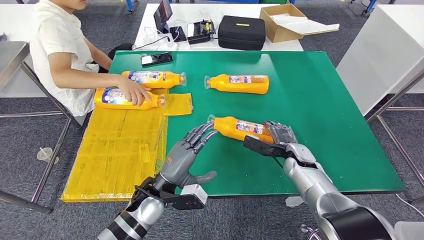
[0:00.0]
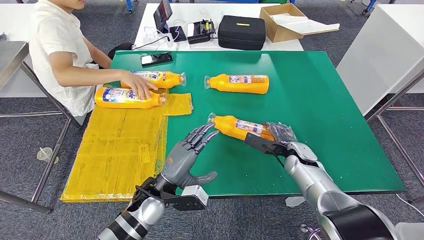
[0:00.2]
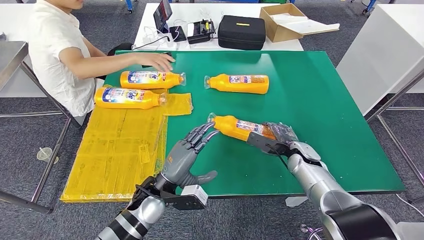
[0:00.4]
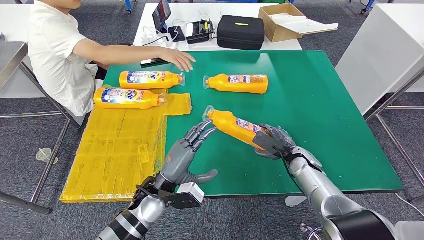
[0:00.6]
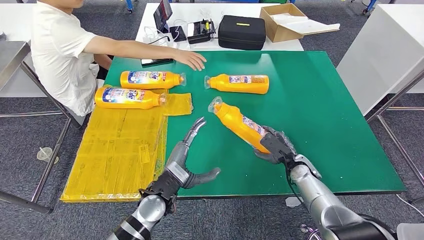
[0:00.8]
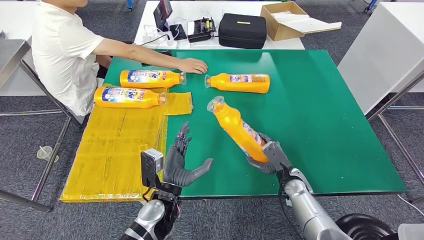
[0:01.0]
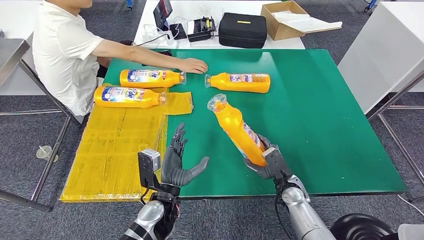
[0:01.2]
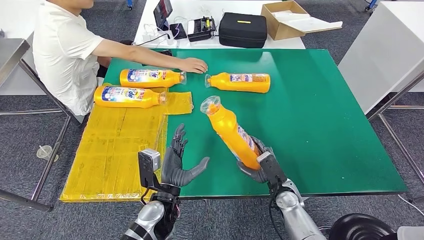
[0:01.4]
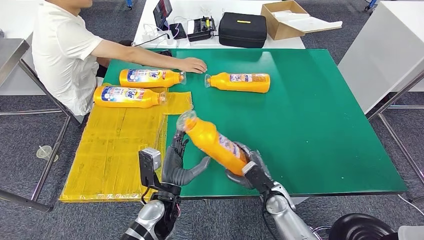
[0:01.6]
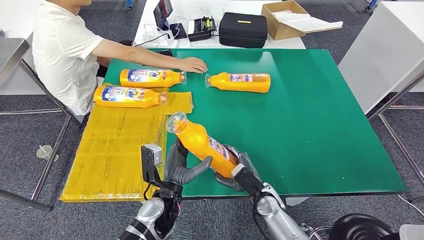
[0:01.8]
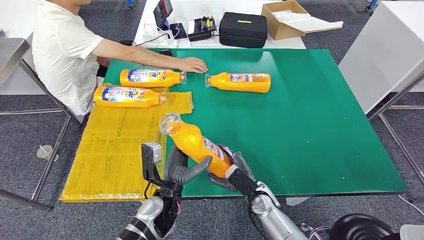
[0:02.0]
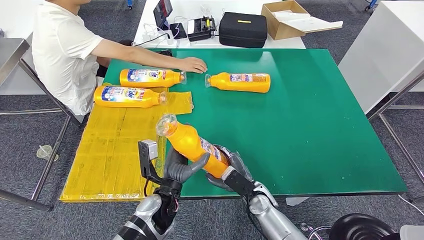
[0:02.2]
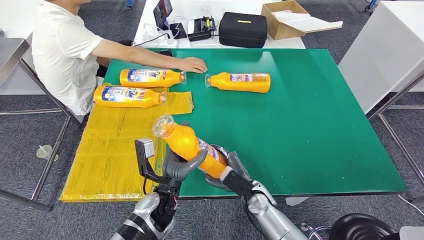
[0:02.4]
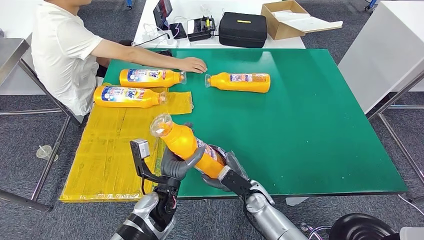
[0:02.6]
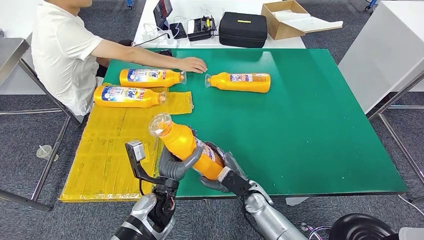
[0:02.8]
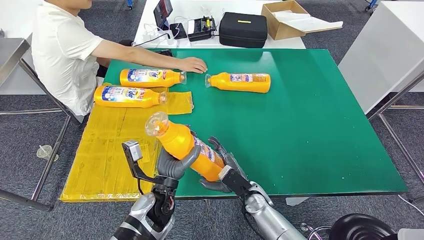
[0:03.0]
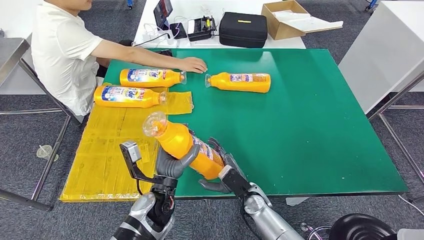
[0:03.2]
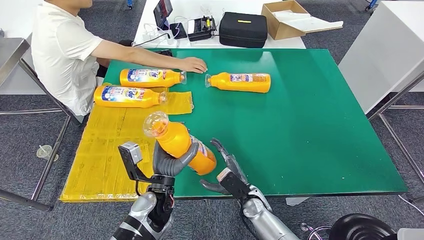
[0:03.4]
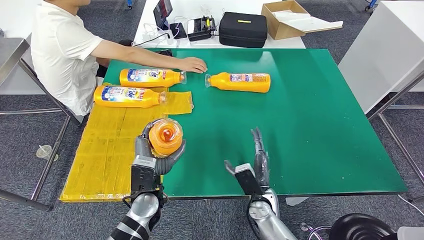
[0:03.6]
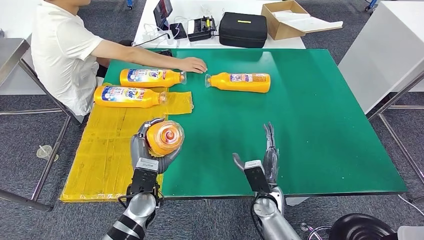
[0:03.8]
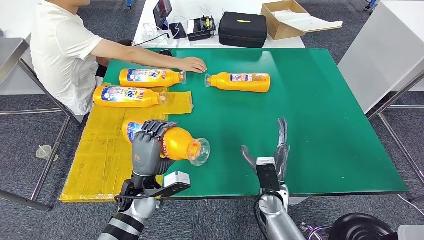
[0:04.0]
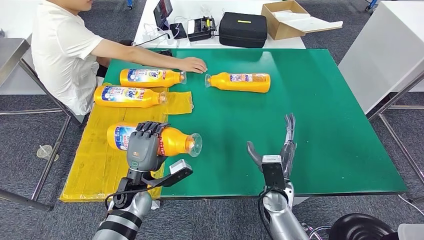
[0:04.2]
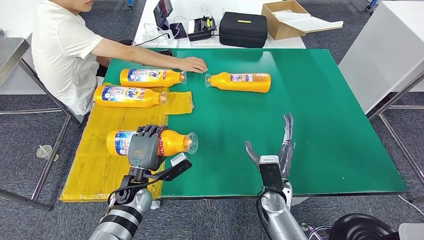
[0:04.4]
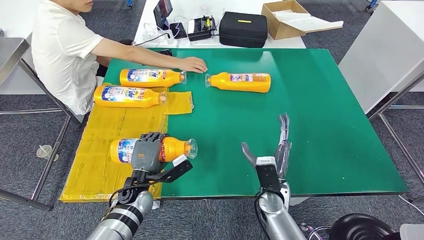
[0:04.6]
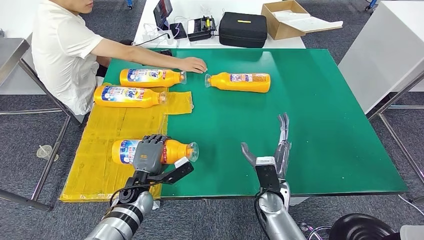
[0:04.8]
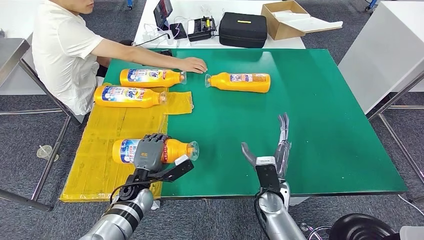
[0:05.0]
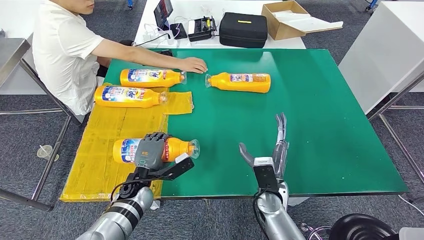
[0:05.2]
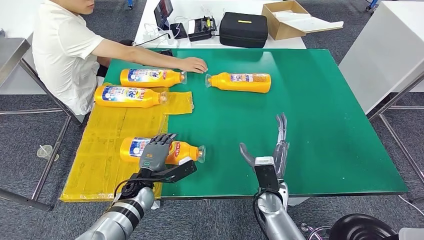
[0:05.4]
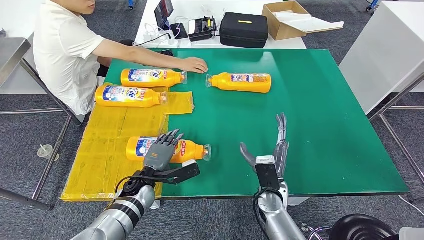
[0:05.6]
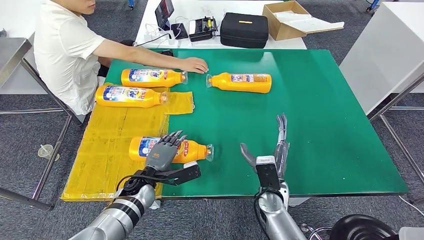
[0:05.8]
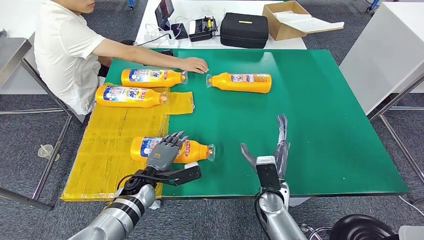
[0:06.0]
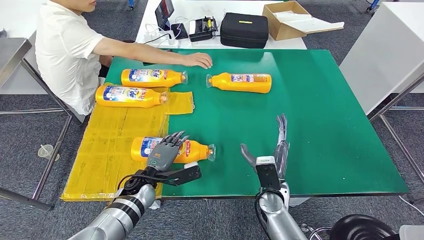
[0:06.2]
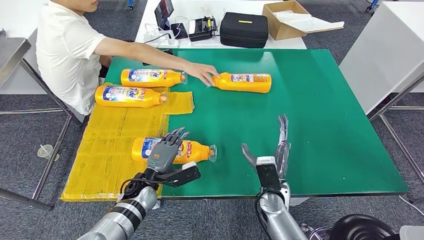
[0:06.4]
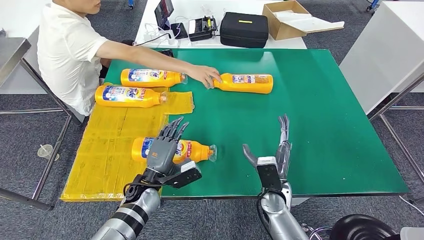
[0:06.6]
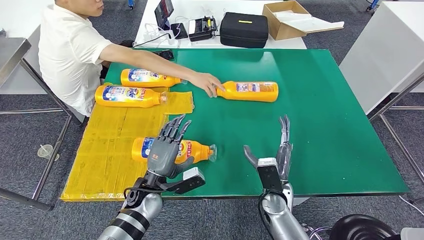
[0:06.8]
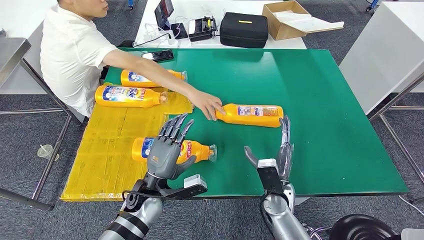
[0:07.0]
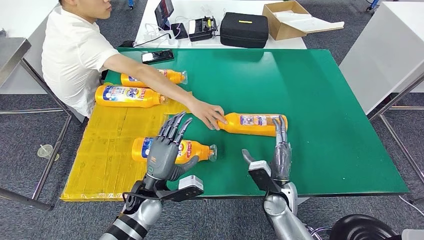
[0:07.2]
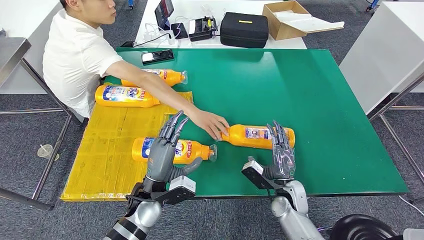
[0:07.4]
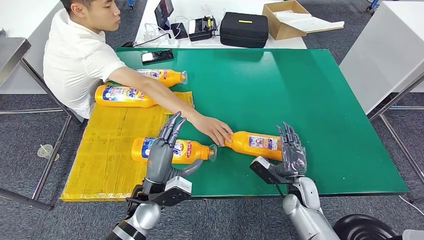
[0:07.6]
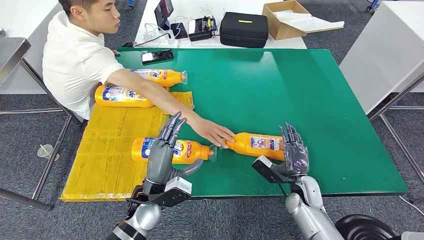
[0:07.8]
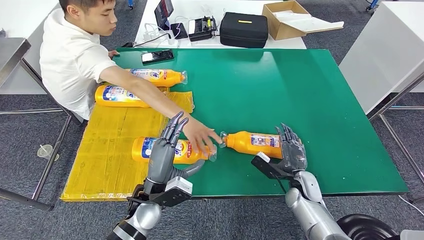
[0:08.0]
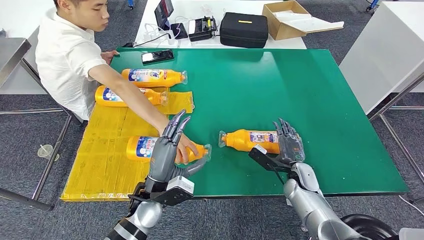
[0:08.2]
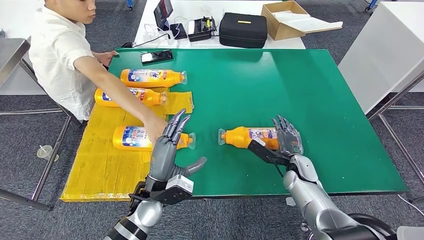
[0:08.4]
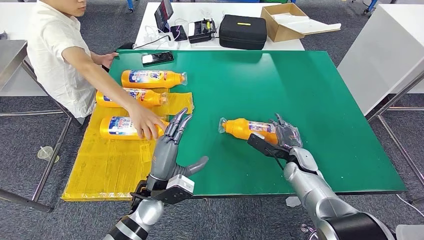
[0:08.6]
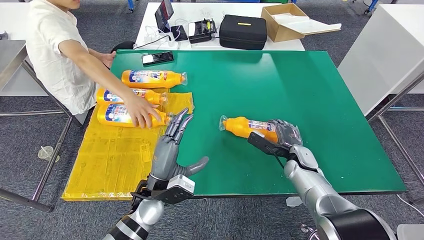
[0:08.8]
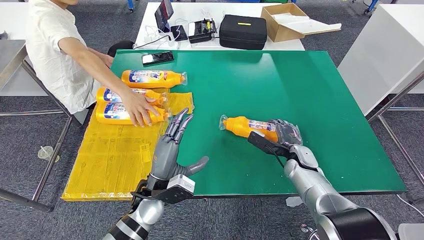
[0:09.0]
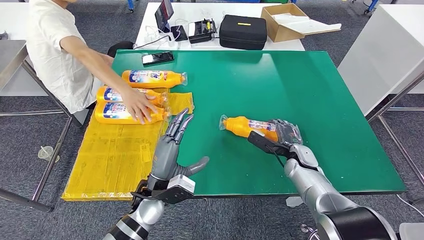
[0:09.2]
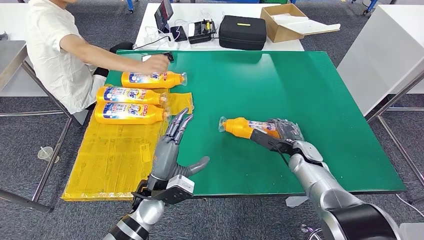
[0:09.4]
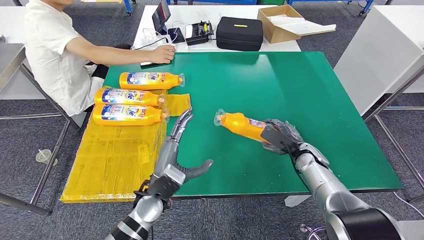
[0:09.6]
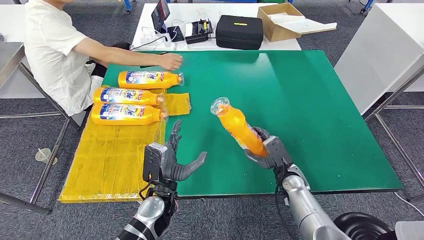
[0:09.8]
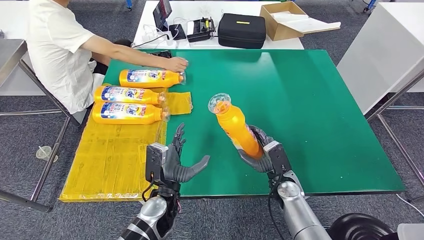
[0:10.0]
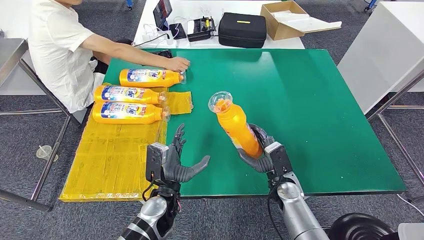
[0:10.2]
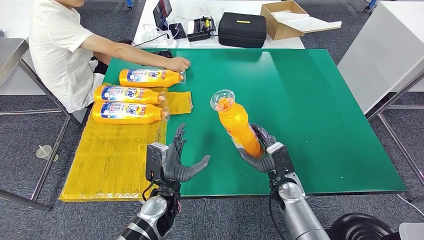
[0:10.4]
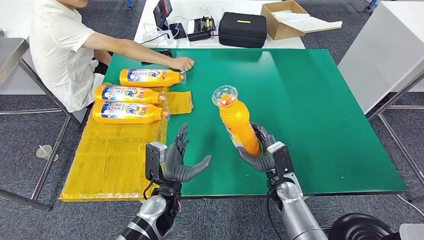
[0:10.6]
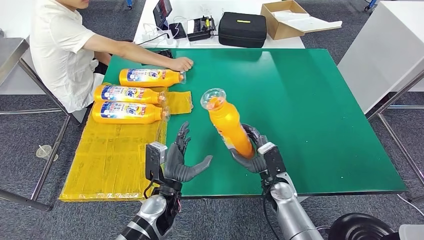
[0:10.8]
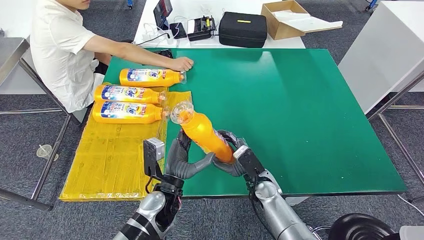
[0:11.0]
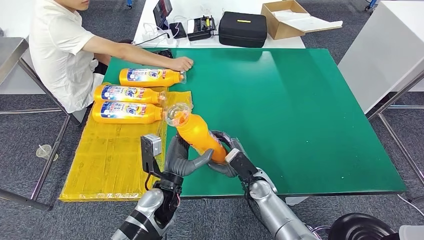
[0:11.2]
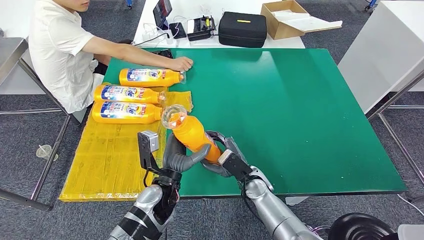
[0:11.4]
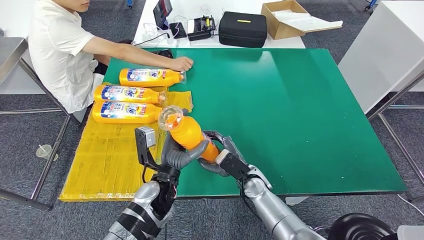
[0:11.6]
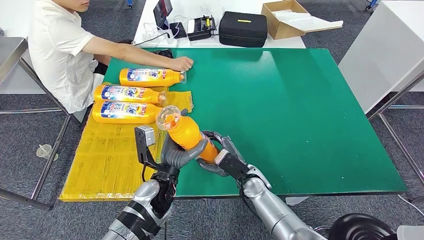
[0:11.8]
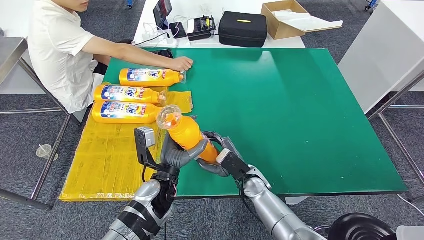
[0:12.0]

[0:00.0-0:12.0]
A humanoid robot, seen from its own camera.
Step, 0:00.0 to 0:03.2: Pick up the fast-moving consumer goods bottle from the table.
Step, 0:03.4 to 0:08.8: Flip the fast-moving consumer goods bottle to the front side.
0:01.6 to 0:03.0: The right hand goes roughly 5 cm to the left.
0:03.0 to 0:04.4: The left hand is displaced to the left and forward by approximately 10 cm; the right hand travels upward by approximately 5 cm.
0:10.4 to 0:12.0: The right hand goes about 10 cm to the left.

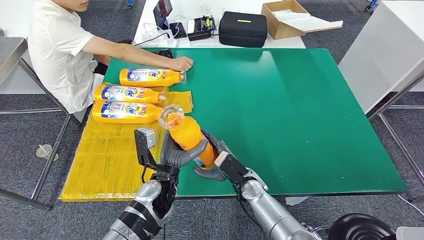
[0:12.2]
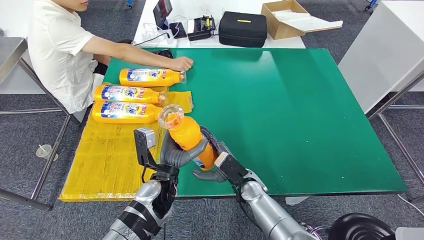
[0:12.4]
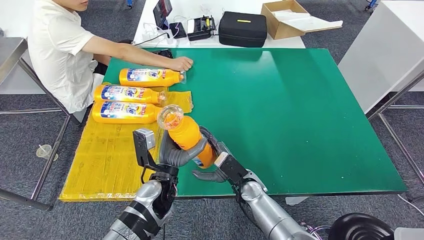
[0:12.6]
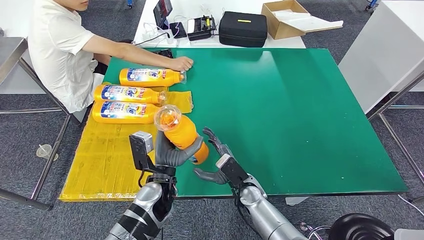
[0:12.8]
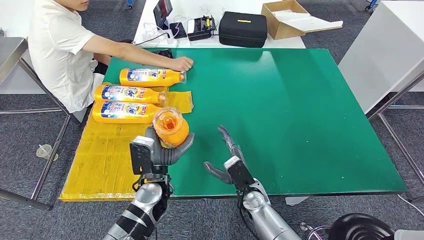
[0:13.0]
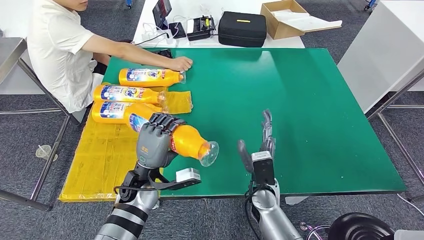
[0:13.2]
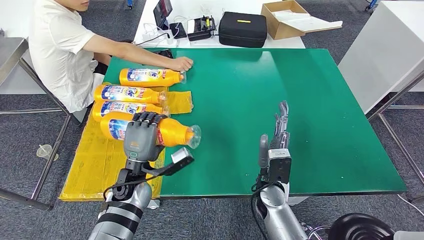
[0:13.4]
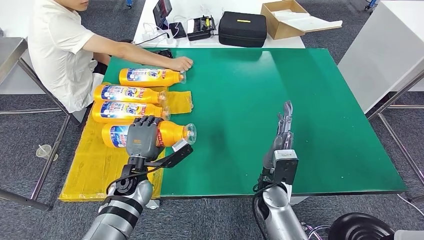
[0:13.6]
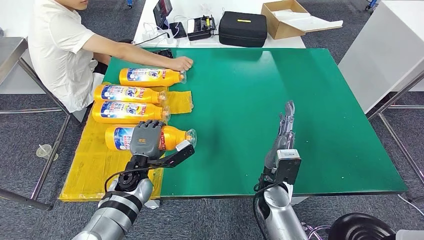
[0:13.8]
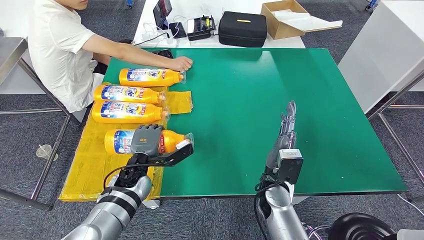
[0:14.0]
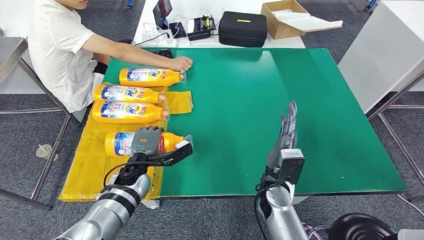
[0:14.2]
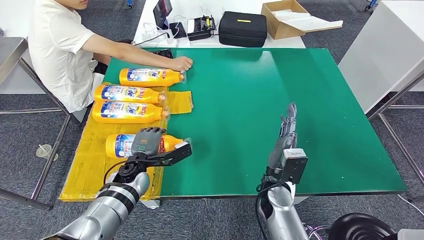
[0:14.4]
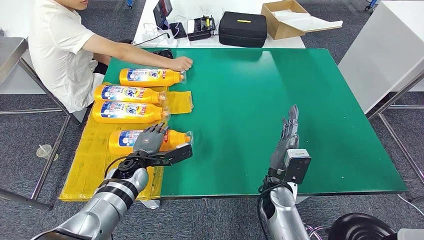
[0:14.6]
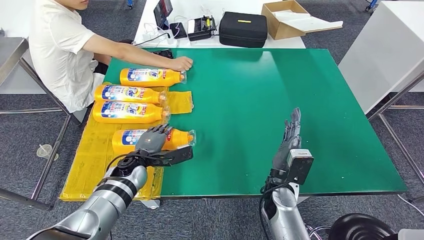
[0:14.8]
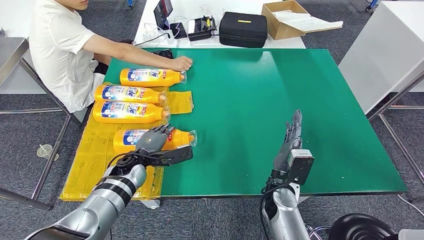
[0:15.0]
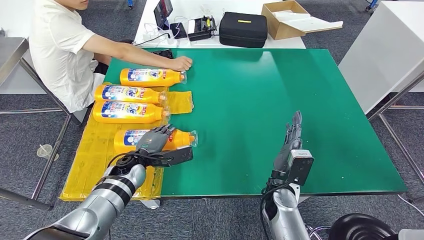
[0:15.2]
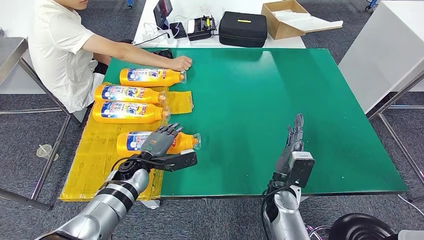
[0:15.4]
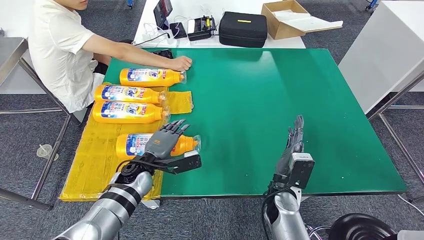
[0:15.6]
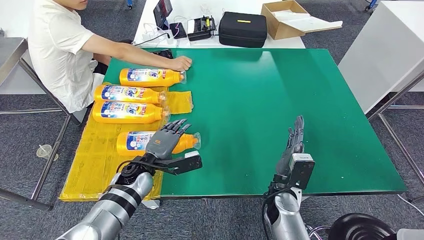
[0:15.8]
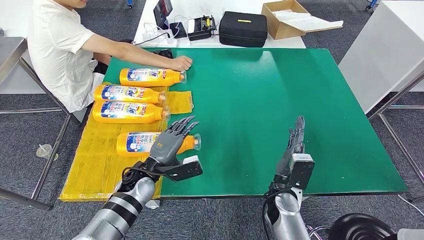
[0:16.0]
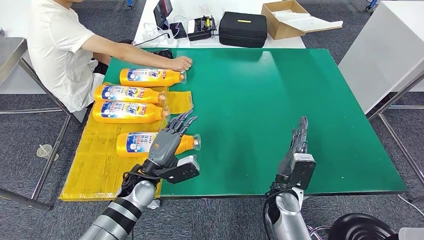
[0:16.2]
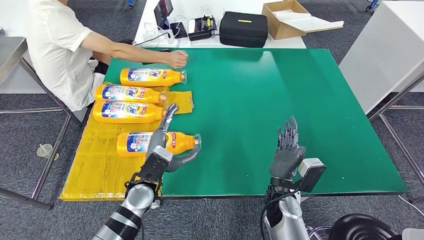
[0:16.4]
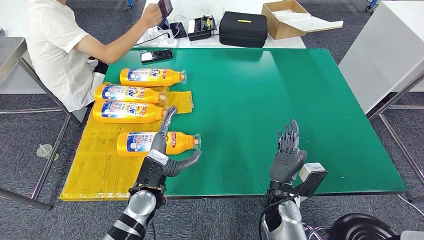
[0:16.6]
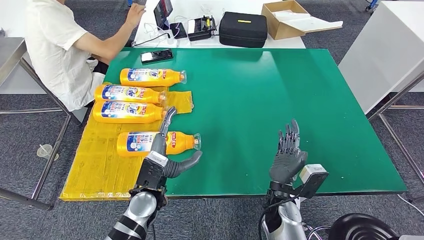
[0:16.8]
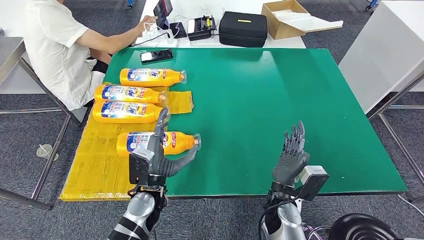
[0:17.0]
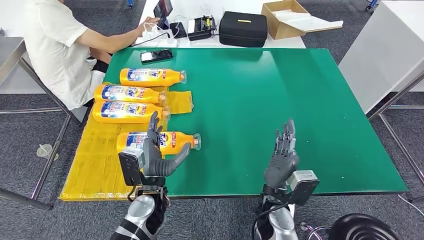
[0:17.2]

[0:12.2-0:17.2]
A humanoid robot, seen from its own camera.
Step, 0:12.8 to 0:17.0: Flip the fast-moving consumer goods bottle to the front side.
0:12.2 to 0:13.8: The left hand goes approximately 10 cm to the left. The right hand travels upward by approximately 5 cm.
0:15.6 to 0:17.2: The left hand heads backward and to the right, covering some 10 cm, while the right hand ends up approximately 5 cm from where it was.
